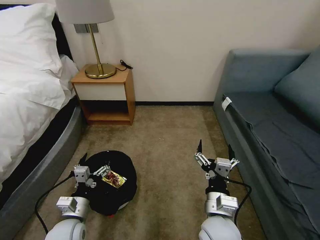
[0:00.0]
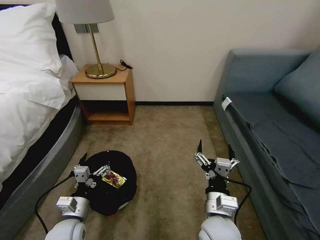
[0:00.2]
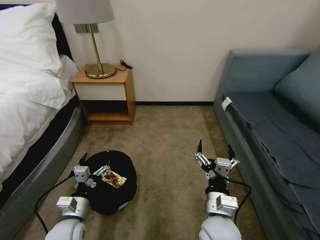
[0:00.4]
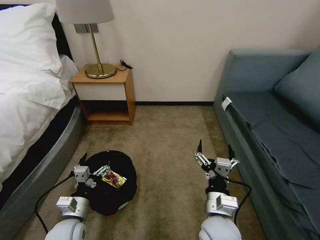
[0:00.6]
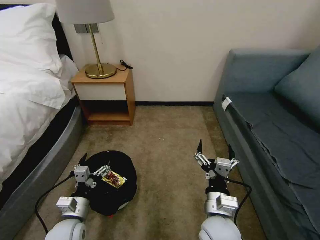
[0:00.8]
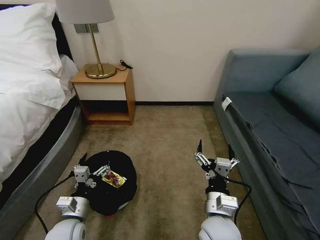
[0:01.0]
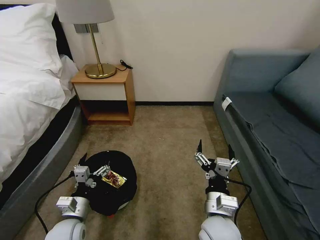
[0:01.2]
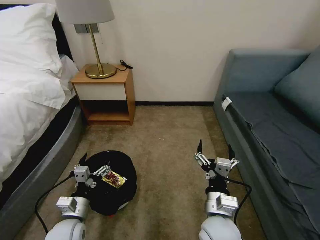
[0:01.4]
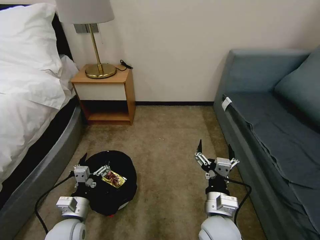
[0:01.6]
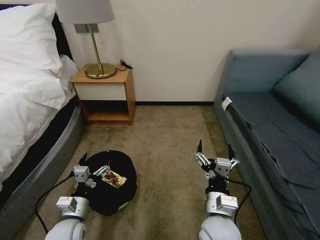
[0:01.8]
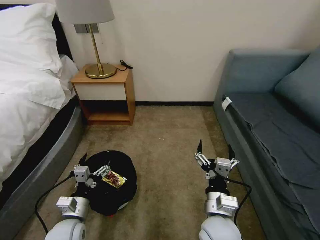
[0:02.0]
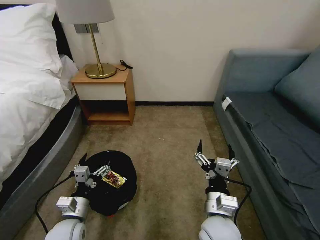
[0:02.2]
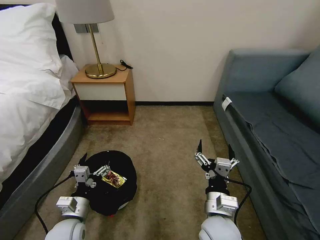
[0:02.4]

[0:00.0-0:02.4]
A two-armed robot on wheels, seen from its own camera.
Task of the whole recording: Pick up the trash bin, then pick up the garbage on the floor and place it into the trash bin.
0:00.0 to 0:02.4: Neither gripper changes place.

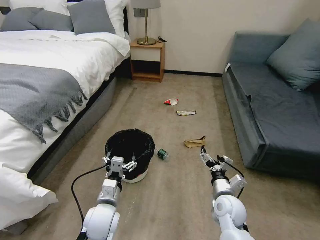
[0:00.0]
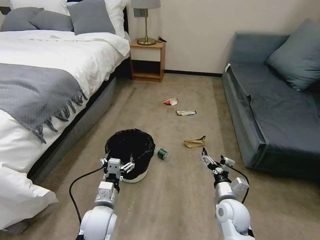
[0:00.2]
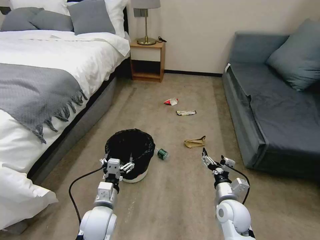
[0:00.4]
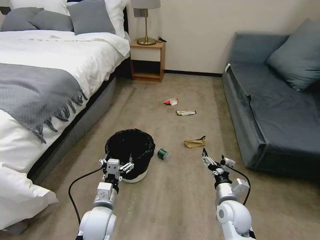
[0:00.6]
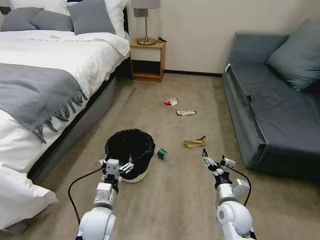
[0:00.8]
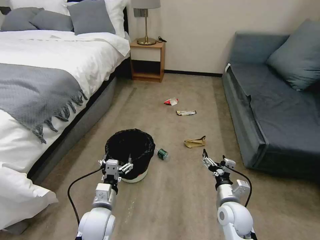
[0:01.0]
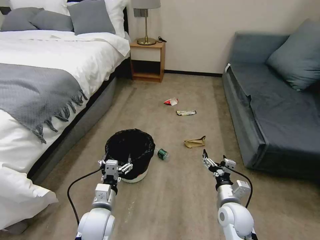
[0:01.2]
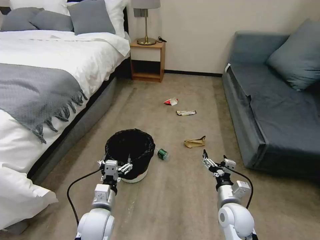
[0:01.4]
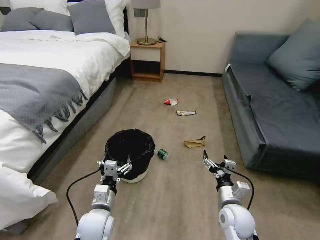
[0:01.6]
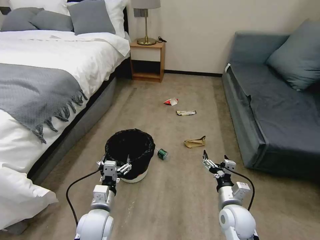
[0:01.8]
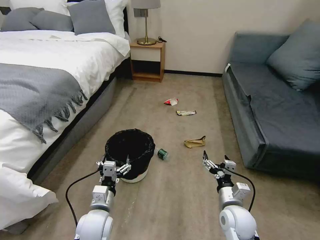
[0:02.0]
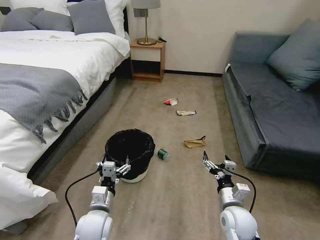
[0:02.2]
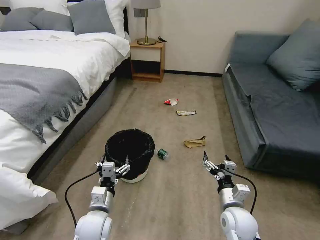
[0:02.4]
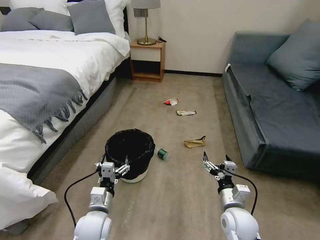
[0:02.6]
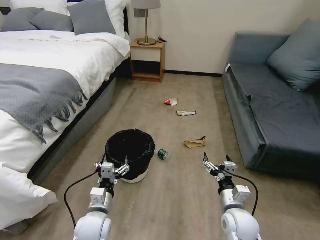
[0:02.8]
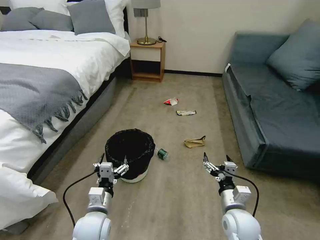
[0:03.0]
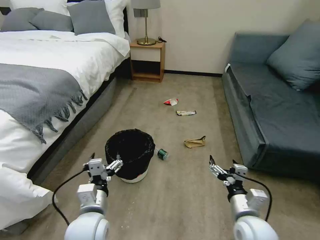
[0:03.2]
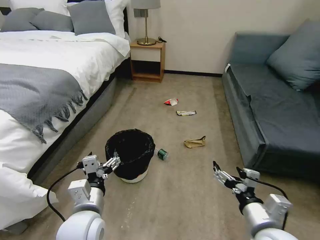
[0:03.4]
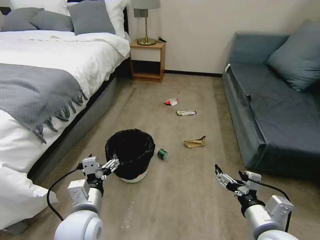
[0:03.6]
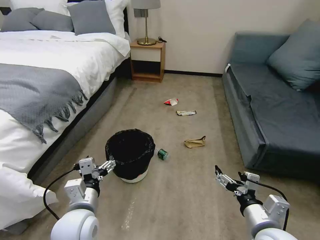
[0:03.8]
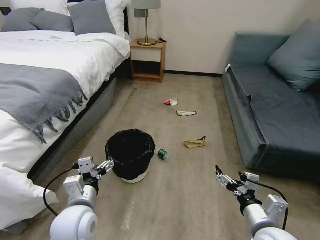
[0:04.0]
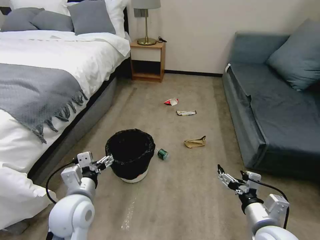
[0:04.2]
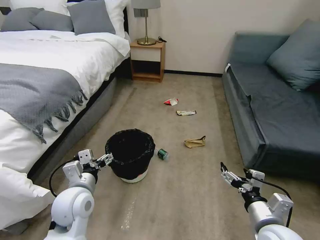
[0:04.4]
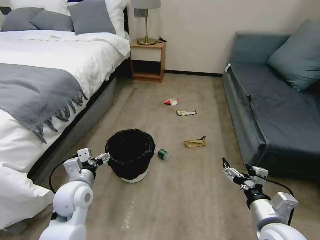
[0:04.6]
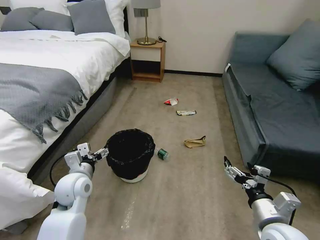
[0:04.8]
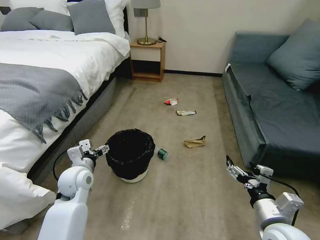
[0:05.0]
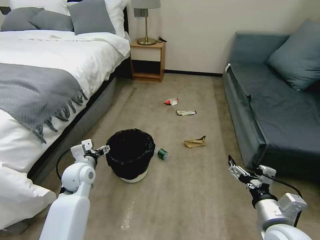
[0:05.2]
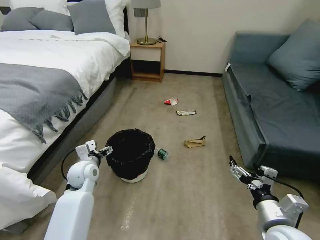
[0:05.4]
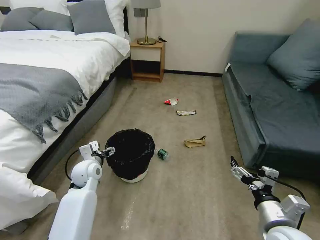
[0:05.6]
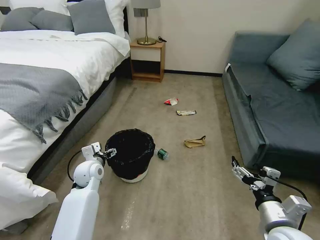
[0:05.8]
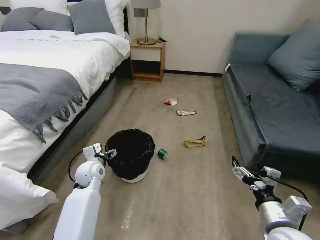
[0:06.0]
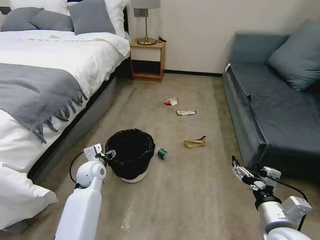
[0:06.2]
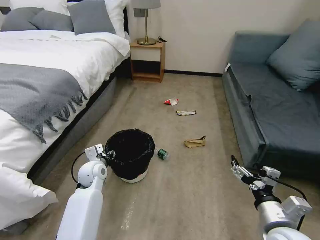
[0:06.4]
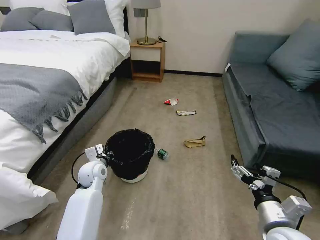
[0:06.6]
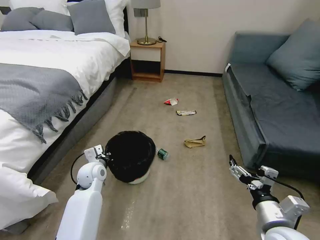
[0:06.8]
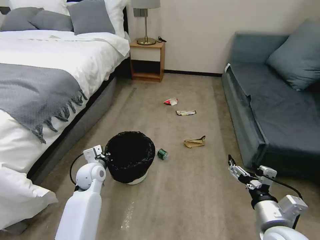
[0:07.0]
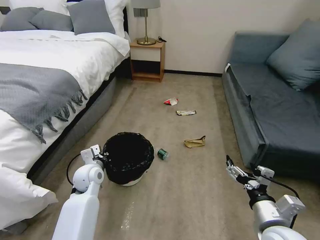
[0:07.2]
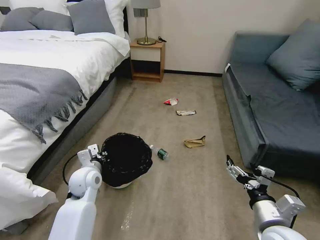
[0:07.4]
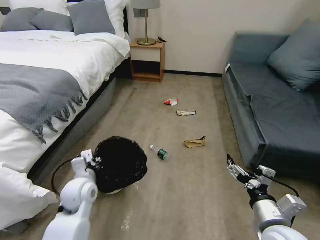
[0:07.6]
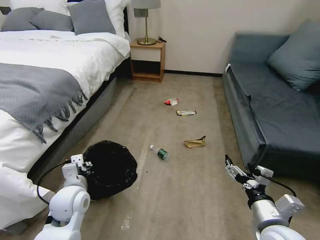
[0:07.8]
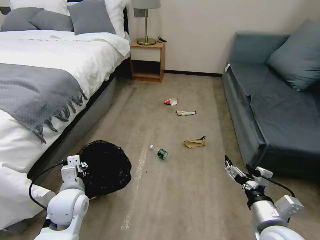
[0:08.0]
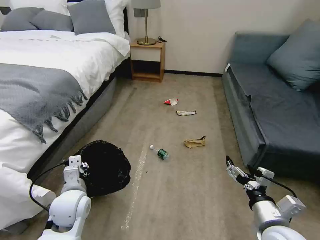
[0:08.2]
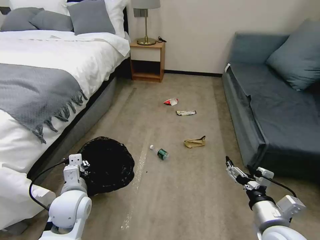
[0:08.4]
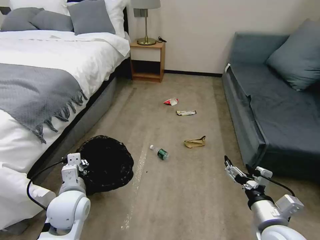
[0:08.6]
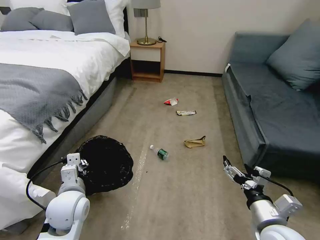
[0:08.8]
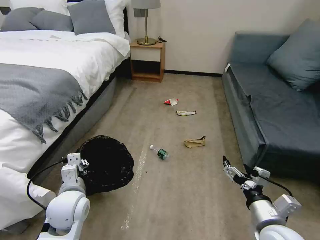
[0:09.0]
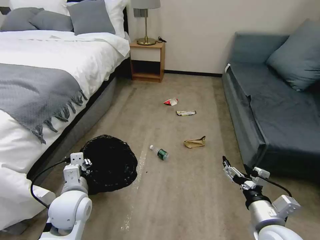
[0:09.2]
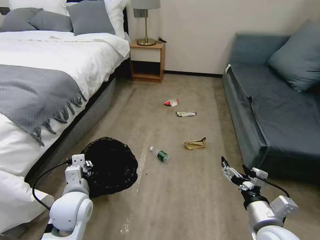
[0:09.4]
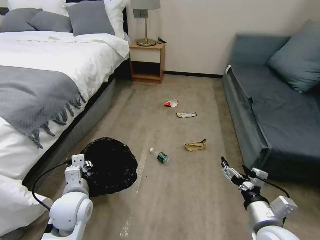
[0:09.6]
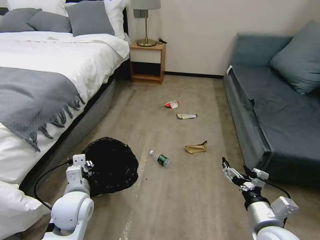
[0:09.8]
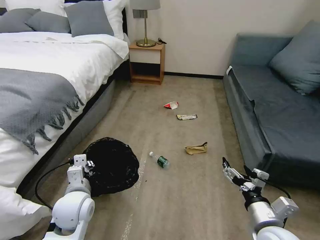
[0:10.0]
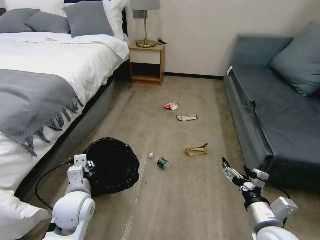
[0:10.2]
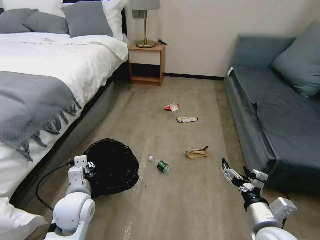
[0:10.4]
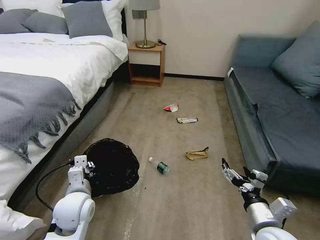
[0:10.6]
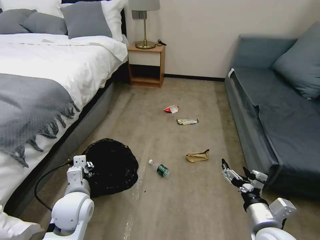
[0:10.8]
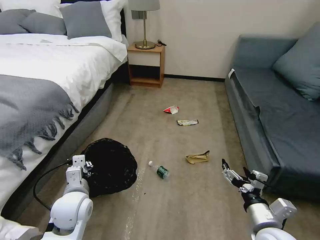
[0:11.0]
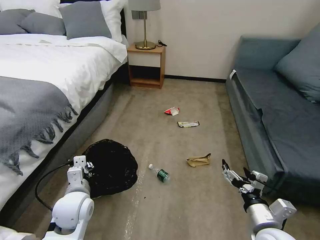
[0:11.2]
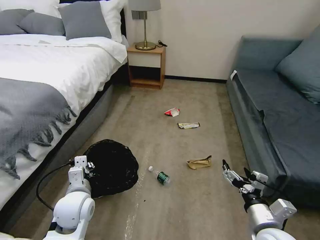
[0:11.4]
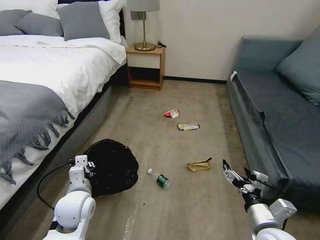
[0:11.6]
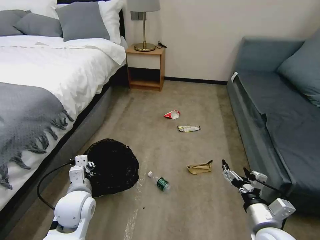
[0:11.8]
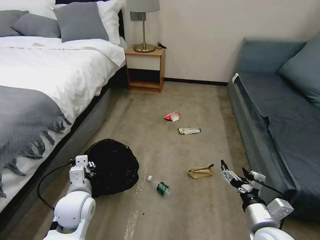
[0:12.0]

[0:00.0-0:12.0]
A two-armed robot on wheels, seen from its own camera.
Task of the whole recording: Pick up the trash bin, then pick up the garbage on the floor and place it into the trash bin.
0:01.6 to 0:03.0: The grippers move only a little.
0:03.0 to 0:04.4: The left gripper travels upward by roughly 10 cm; the right gripper moves upward and backward, some 10 cm.
0:04.4 to 0:06.0: The left gripper is displaced forward and downward by some 15 cm.
0:06.0 to 0:07.6: The left gripper travels backward by roughly 10 cm, and closes its fingers.
0:07.6 to 0:09.0: The left gripper heads backward, covering approximately 5 cm.

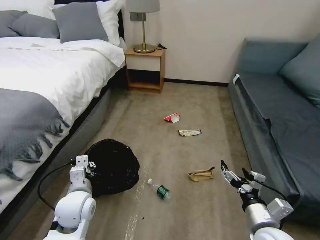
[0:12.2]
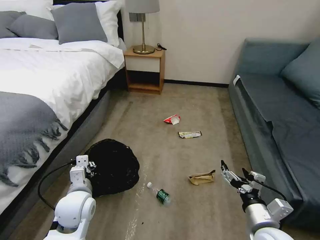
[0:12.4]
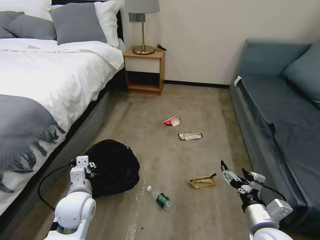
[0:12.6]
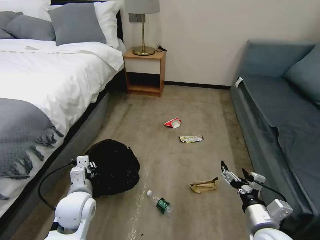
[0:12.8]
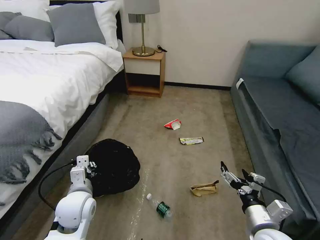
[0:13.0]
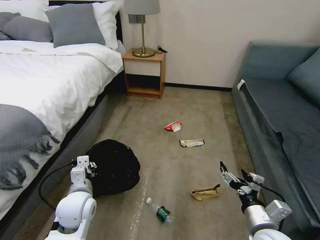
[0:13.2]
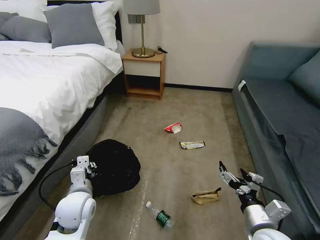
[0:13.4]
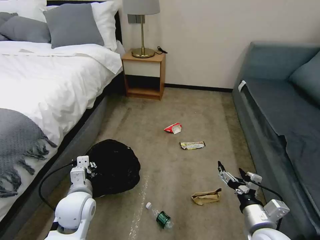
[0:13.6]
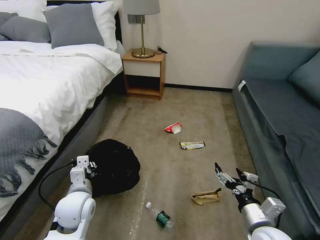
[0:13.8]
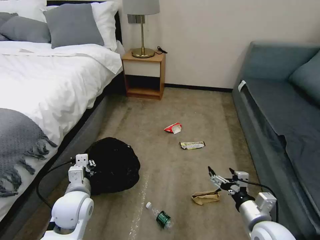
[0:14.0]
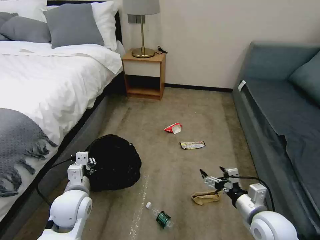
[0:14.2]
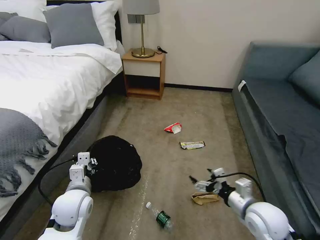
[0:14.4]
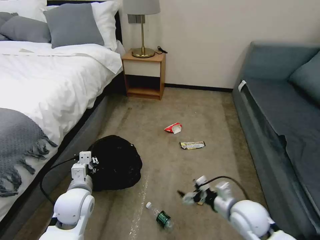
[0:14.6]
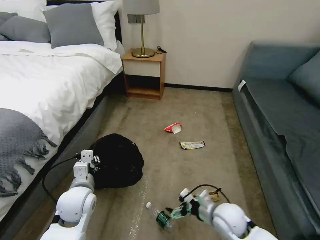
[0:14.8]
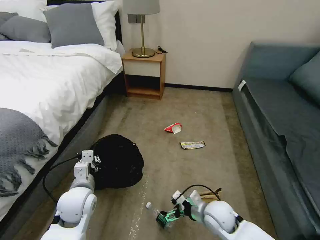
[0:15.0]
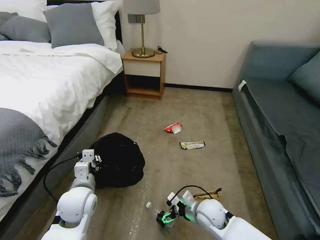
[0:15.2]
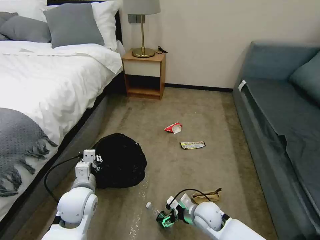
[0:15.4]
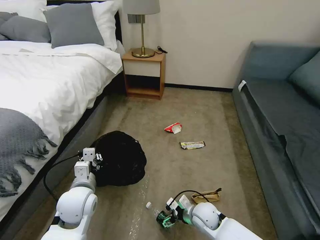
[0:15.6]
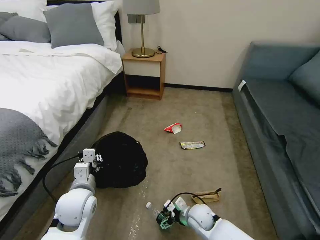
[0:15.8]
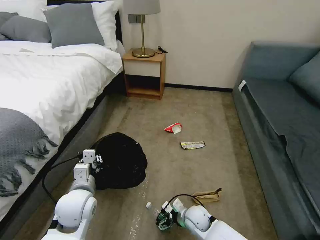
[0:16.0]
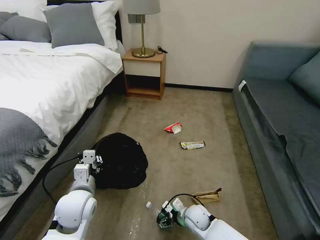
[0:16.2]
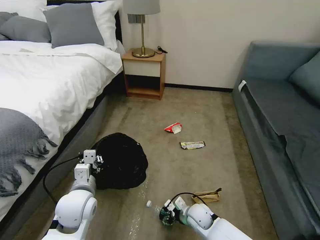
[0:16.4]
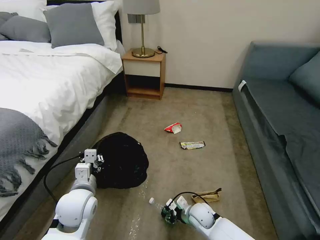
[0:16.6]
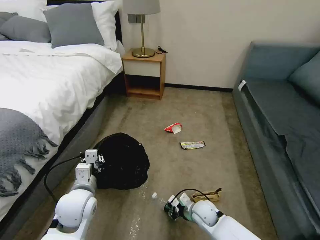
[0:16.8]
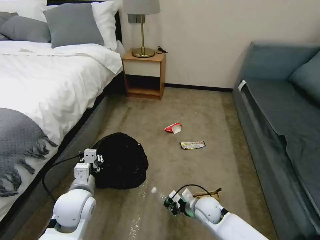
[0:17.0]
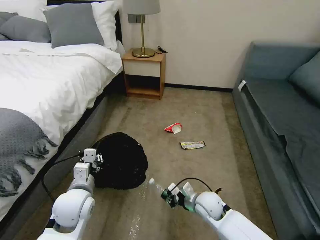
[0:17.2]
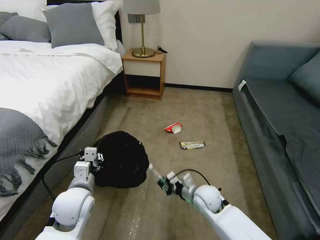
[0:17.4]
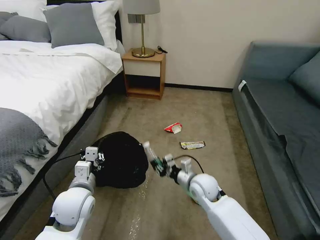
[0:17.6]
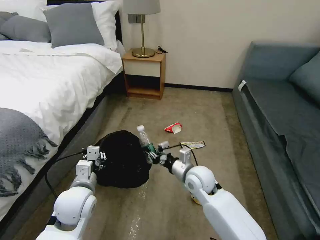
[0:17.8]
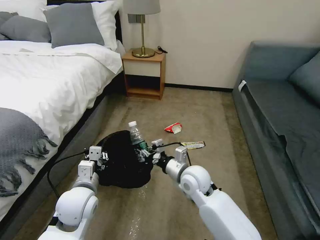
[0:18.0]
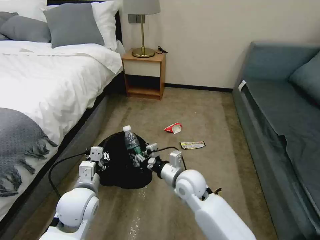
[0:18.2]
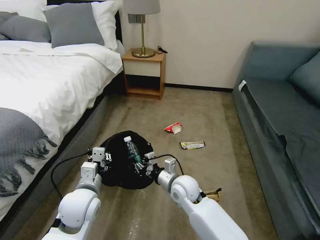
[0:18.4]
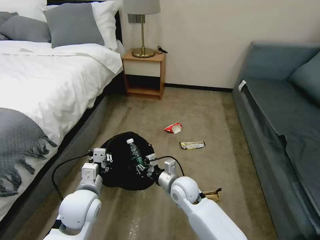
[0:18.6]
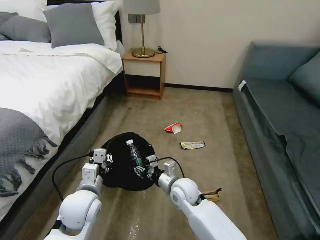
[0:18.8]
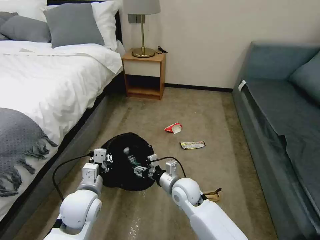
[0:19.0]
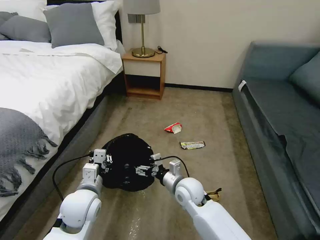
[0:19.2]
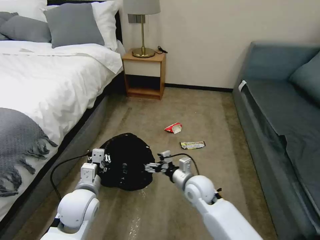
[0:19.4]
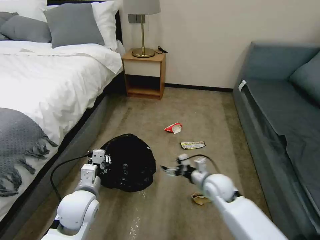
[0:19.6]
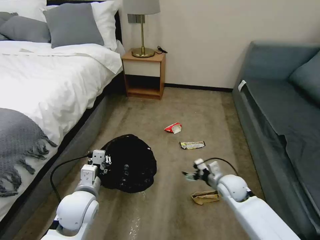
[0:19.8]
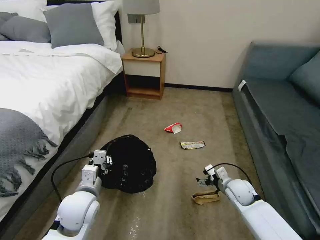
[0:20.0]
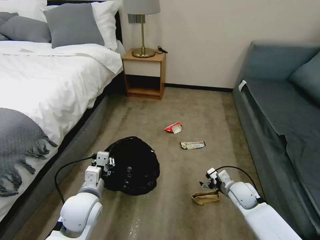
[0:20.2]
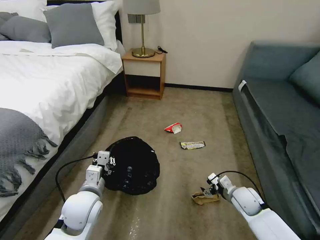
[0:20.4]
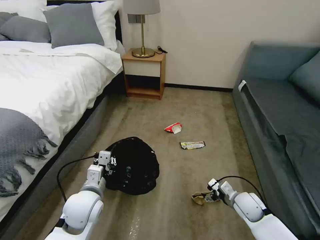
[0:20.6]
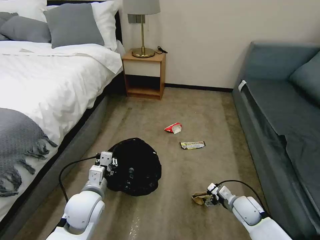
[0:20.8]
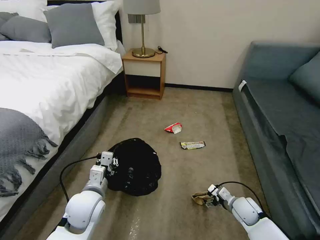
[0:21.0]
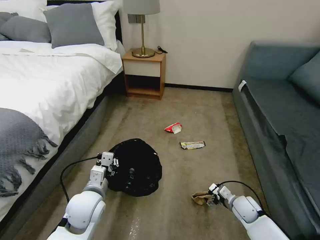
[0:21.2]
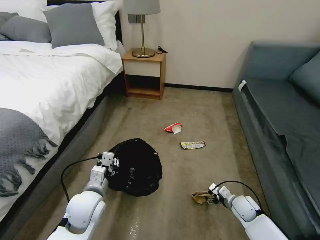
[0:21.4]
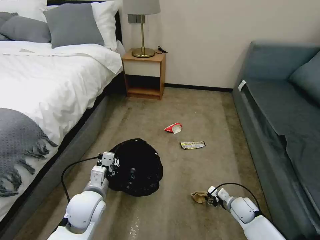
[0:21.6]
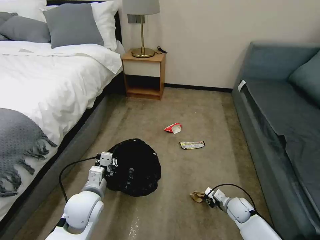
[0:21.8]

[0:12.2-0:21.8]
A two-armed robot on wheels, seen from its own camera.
Task of the whole recording: Pick up the trash bin, then pick up the garbage on the floor and place it into the trash bin.
0:13.8 to 0:15.4: The right gripper is displaced downward, to the left and forward by approximately 20 cm.
0:15.4 to 0:17.0: The right gripper closes.
0:17.0 to 0:18.6: The right gripper travels to the left and upward by roughly 15 cm.
0:18.6 to 0:20.2: The right gripper travels to the right by roughly 25 cm, and opens its fingers.
0:20.2 to 0:21.8: The right gripper travels downward by some 10 cm, and closes.
